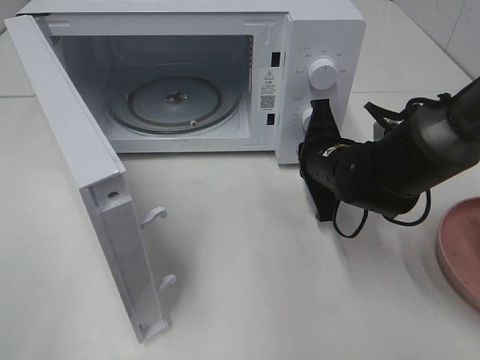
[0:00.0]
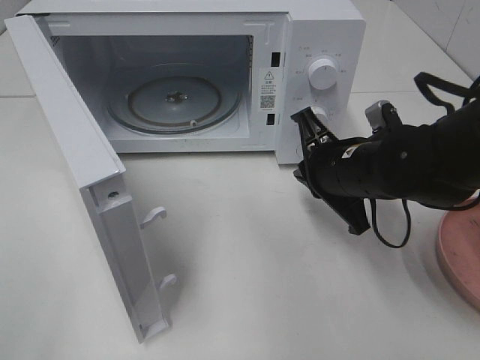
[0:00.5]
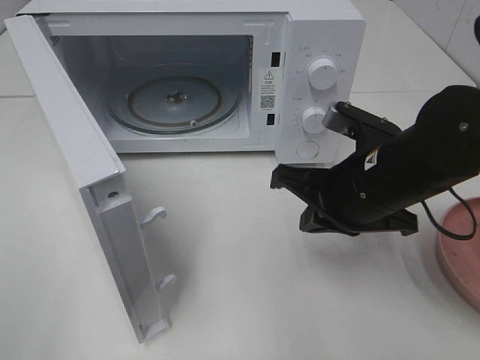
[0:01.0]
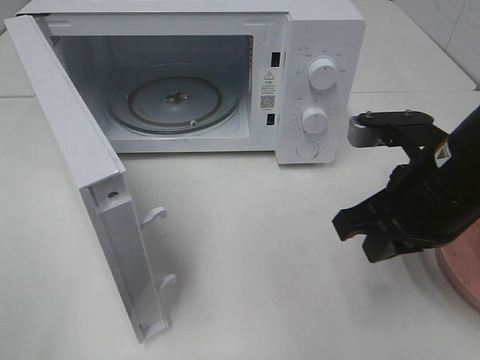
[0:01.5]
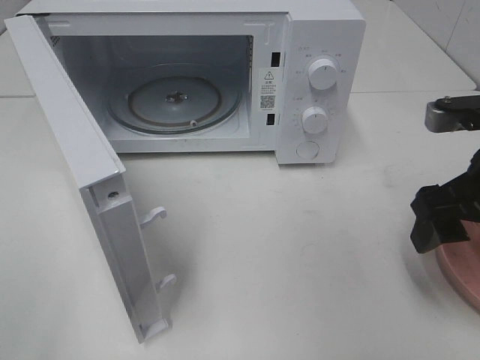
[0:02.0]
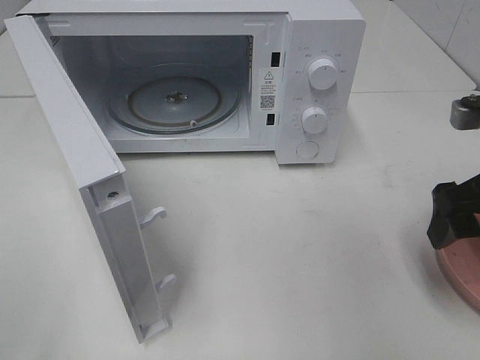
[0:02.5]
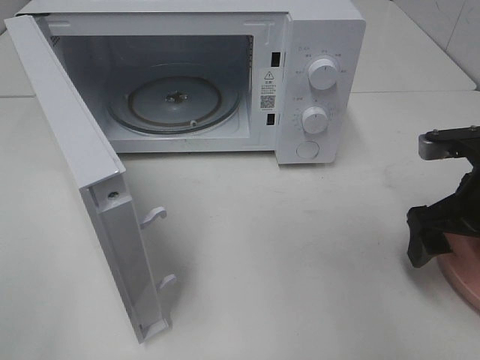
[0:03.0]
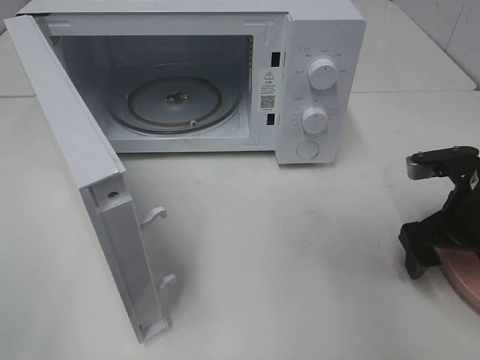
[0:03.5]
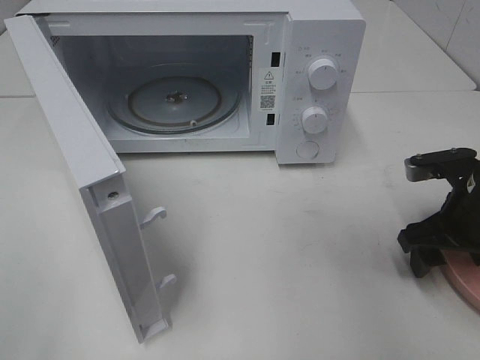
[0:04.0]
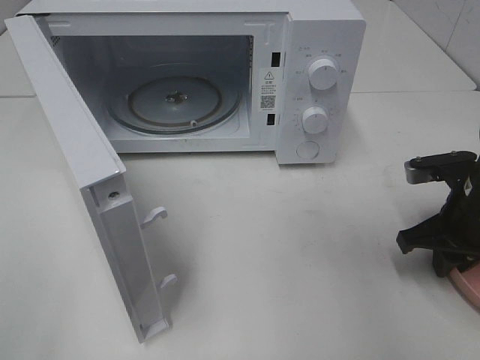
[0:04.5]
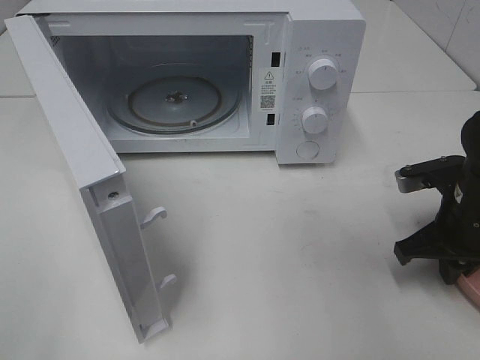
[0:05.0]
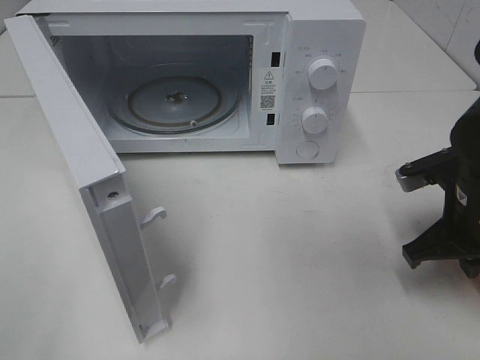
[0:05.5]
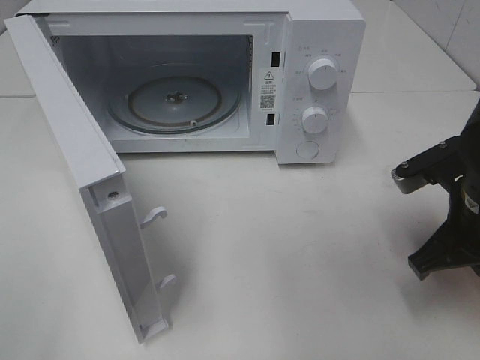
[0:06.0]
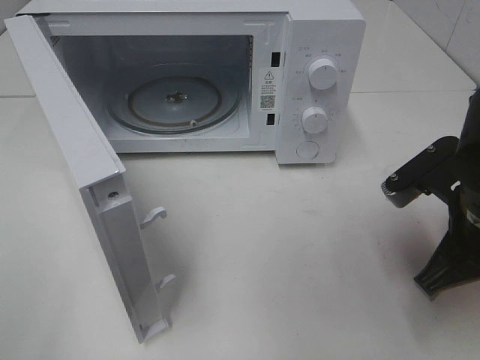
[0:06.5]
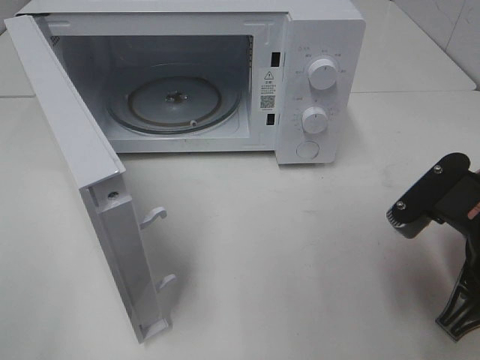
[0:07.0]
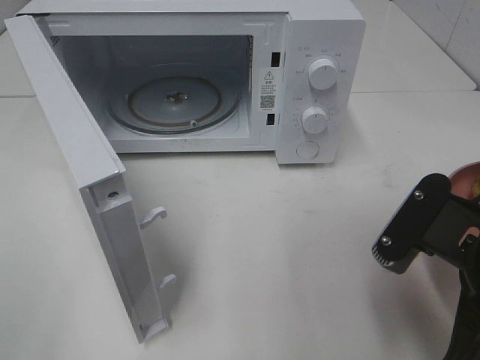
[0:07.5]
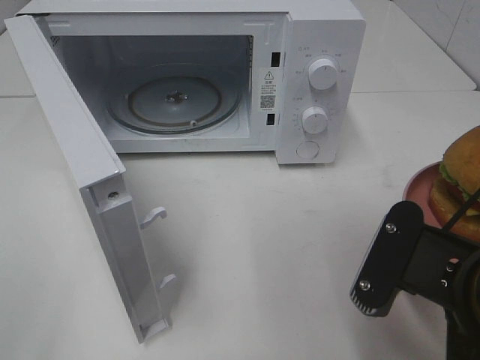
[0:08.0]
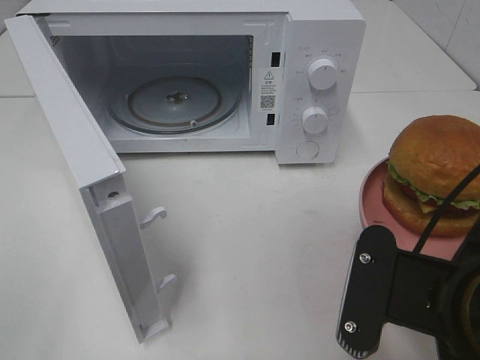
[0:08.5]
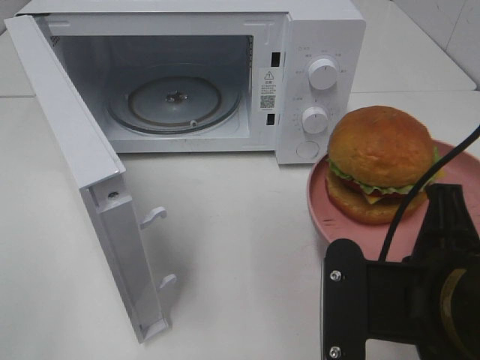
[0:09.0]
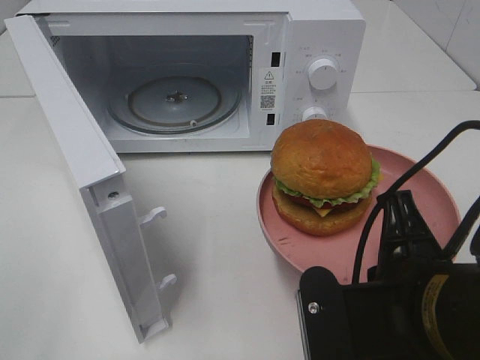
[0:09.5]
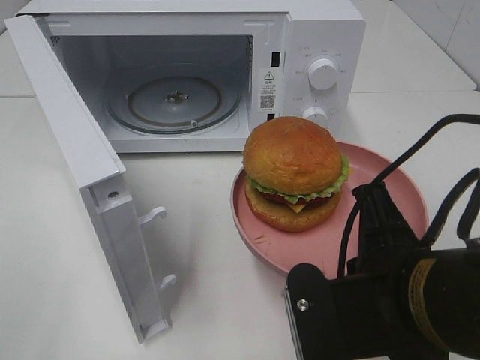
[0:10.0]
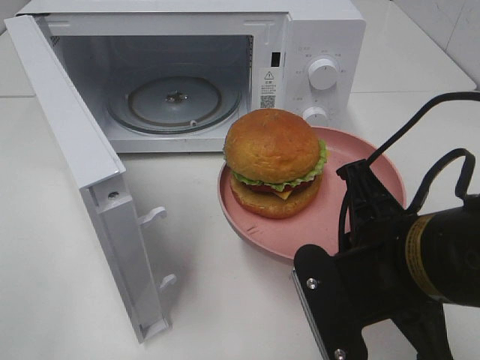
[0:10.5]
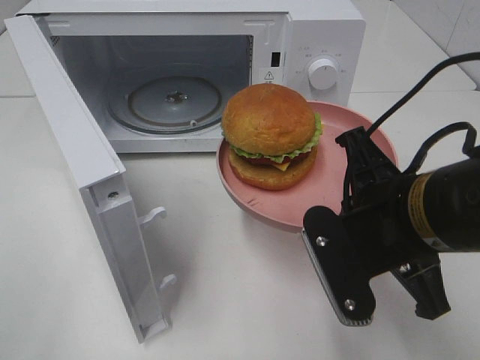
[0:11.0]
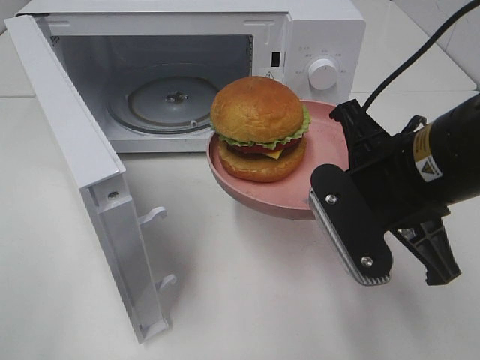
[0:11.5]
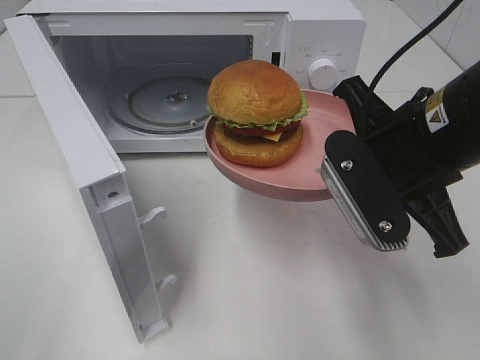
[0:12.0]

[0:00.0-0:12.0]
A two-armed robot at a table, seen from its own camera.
Task of the whole recording: Heat the burger.
Step, 0:00.5 to 0:05.0: Right hand: grab the plate with the hamburger.
0:00.0 to 0:02.0: The right gripper heads backward, to the right and upward, covering approximately 20 cm, and opens its fingers.
0:02.0 to 0:04.0: The right gripper shifts about 10 cm downward.
0:04.0 to 0:06.0: The right gripper ends up roughly 10 cm from where it was, and closes its fingers.
0:06.0 to 0:08.0: The right gripper travels backward and to the left by approximately 15 cm.
0:10.0 to 0:12.0: The right gripper goes some 10 cm forward and upward.

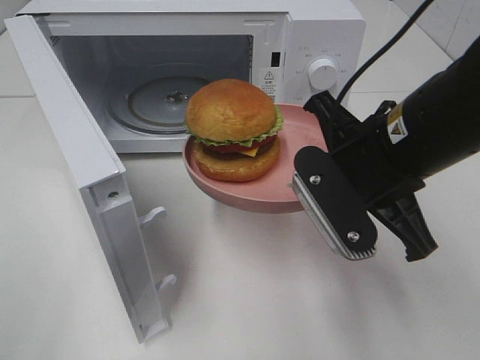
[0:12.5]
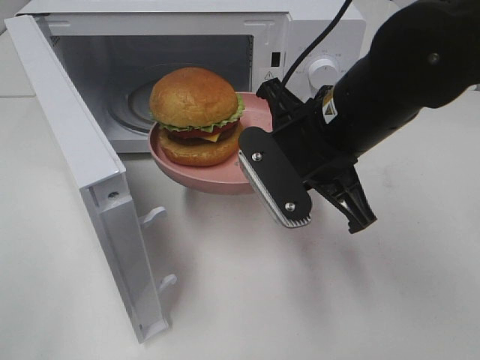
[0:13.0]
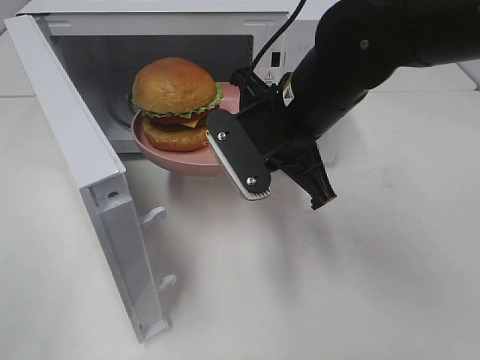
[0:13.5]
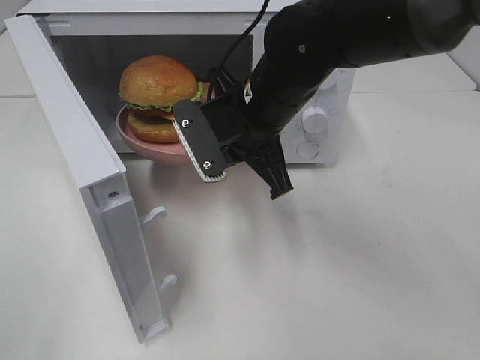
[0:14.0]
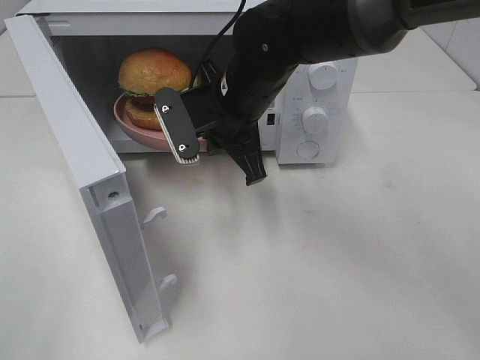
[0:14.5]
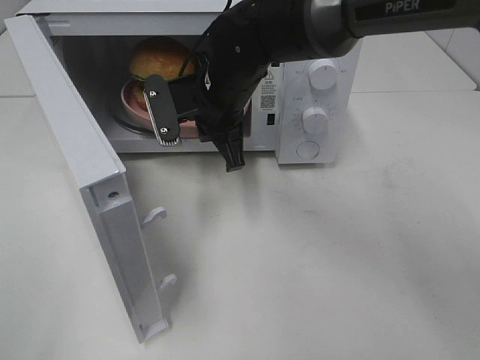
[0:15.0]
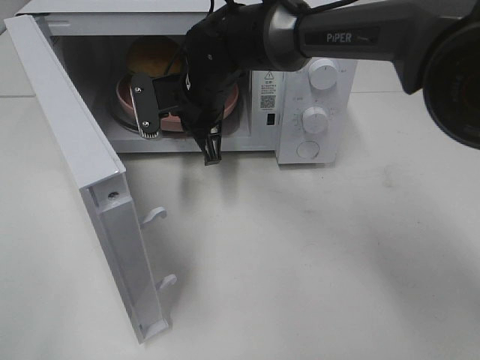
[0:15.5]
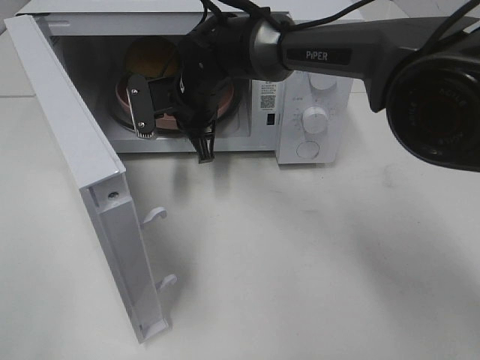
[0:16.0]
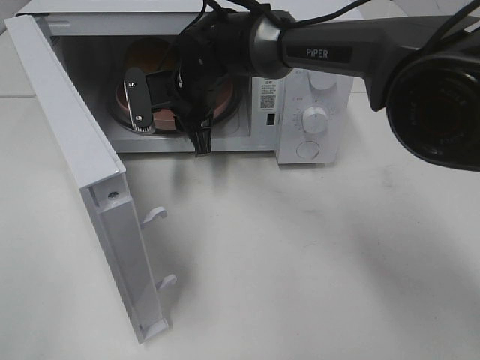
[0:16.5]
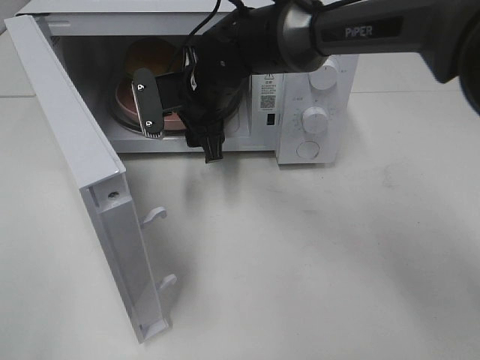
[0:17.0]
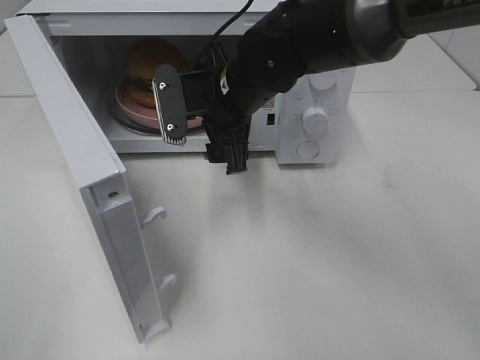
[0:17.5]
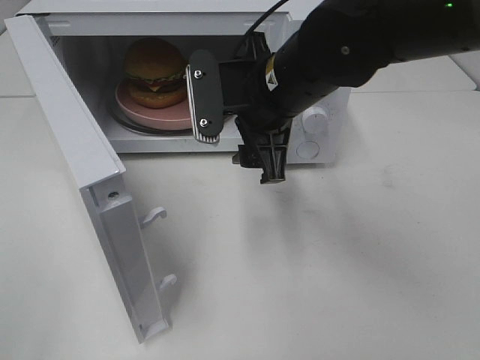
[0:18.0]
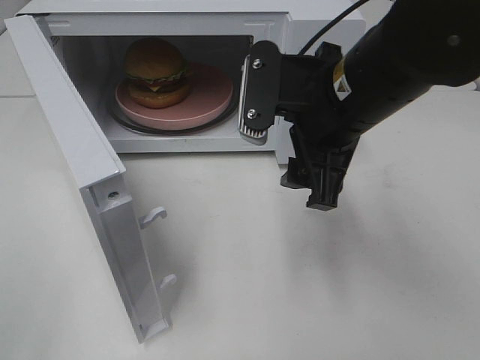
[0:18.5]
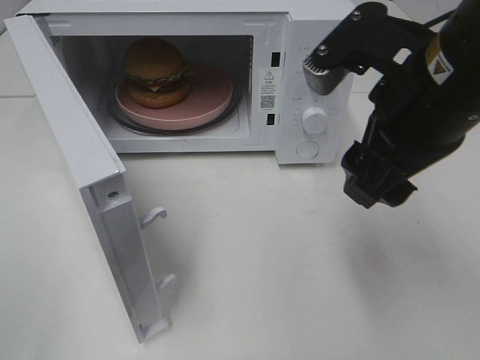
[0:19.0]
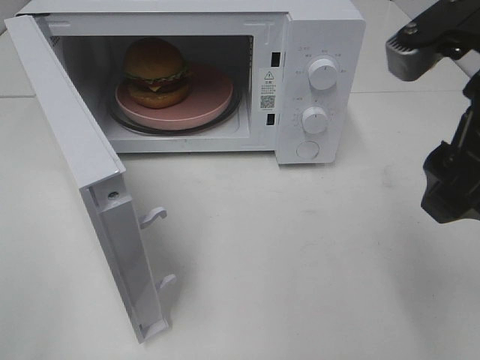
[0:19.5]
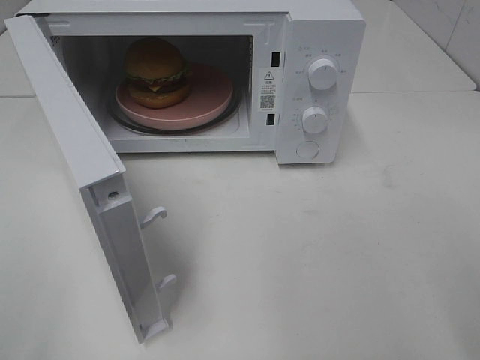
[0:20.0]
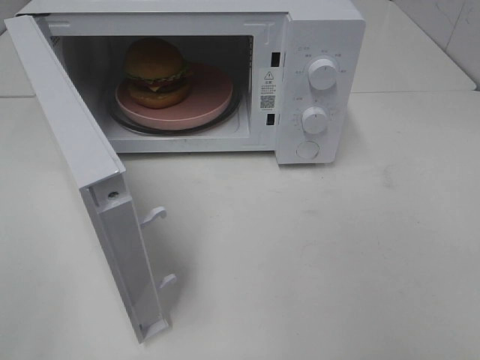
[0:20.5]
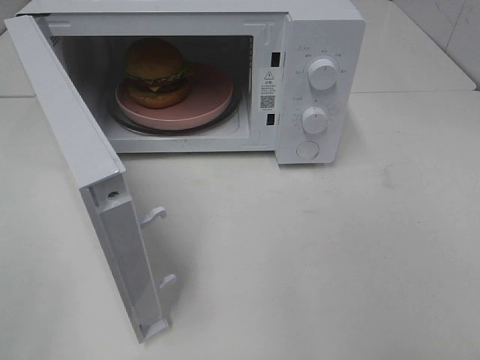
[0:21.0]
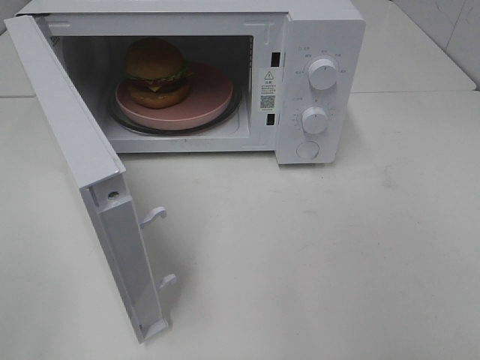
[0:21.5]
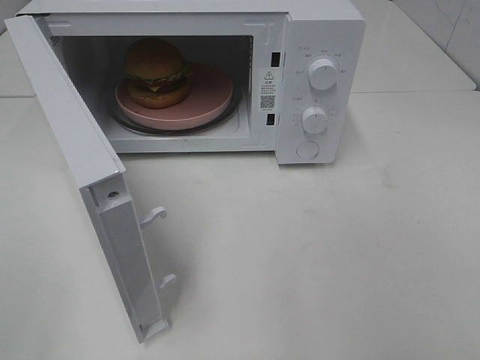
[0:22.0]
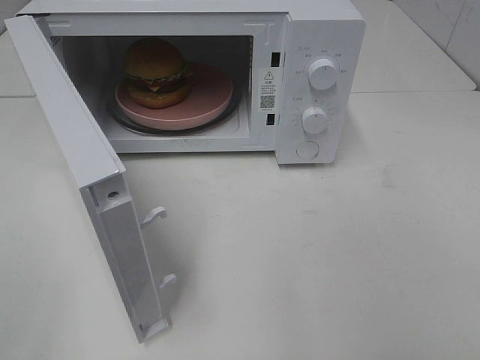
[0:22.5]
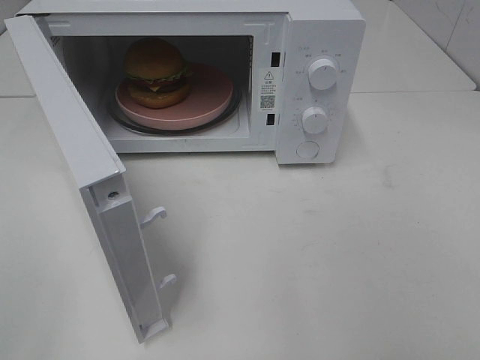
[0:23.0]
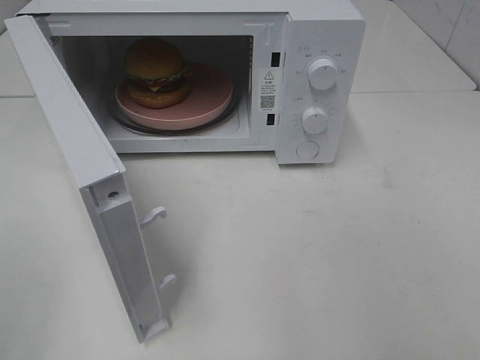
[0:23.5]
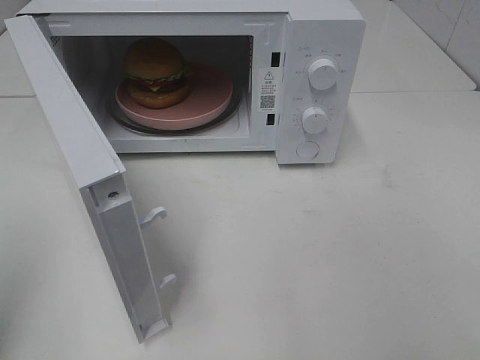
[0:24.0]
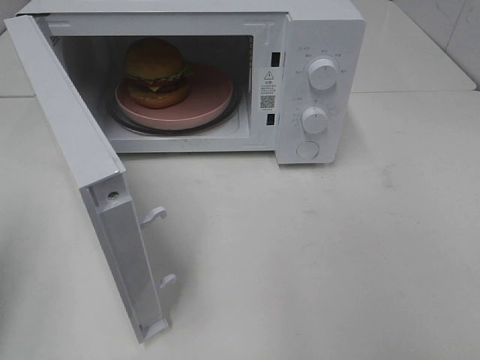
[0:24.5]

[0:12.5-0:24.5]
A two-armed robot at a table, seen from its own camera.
Task of the whole recording: Heat the burger.
Step, 0:12.5 to 0:16.5: Right hand: place the plate in the microwave.
0:12.5 to 0:14.5: The right gripper goes about 15 cm forward and to the left.
0:14.5 to 0:16.5: The right gripper heads forward and to the left, covering approximately 10 cm, and opens up.
0:16.5 to 0:18.5: The right gripper goes some 25 cm backward, to the right and upward, and opens its fingers.
0:18.5 to 0:20.5: The right gripper heads backward and to the right, covering approximately 30 cm.

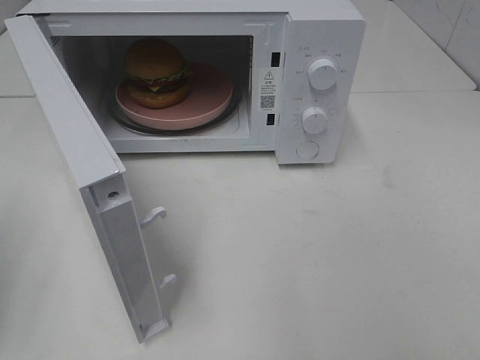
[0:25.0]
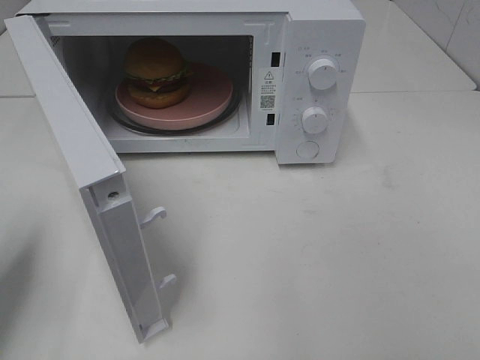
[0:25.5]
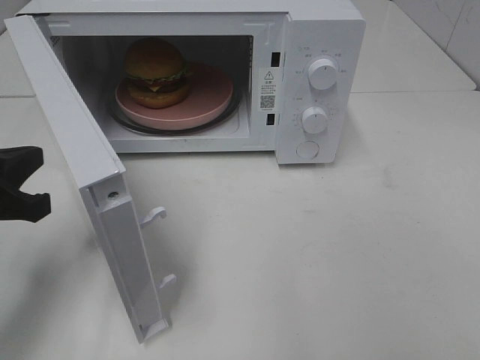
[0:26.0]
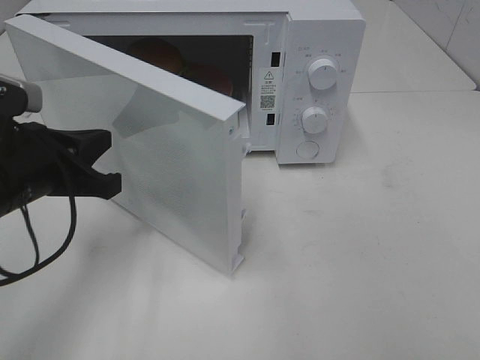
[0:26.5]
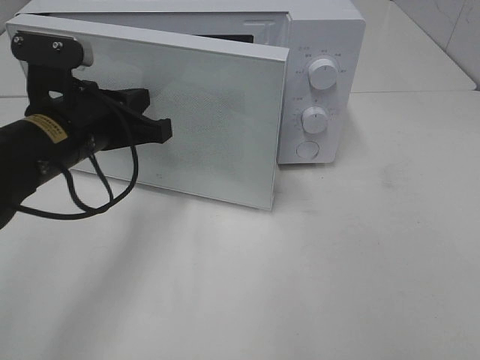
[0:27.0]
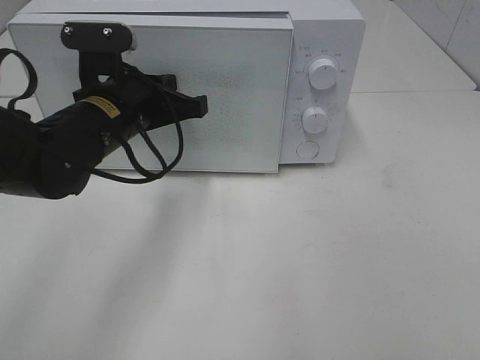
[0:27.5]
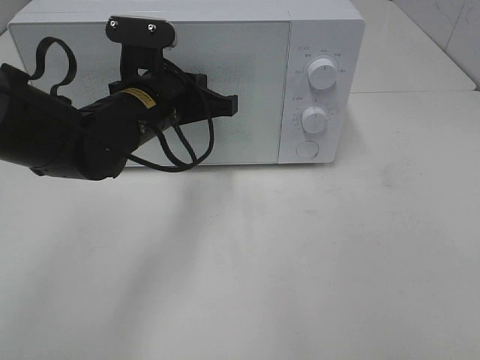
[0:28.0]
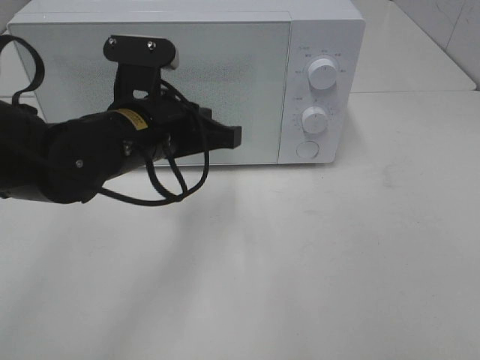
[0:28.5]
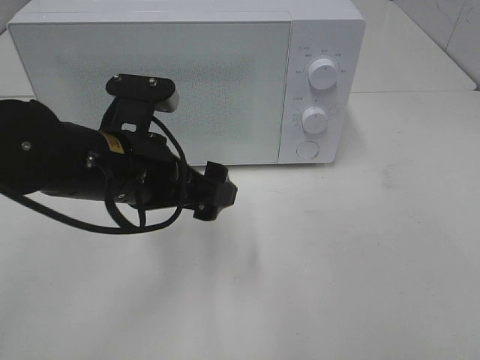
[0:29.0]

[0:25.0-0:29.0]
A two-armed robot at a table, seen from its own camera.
Task of the whole recording: Heat the burger.
Step, 0:25.0 to 0:28.5: Left hand: close the microwave door.
0:25.0 to 0:27.0: The left gripper heads to the right and forward, covering roughly 25 cm.
0:27.0 to 0:29.0: The left gripper heads to the right, covering approximately 5 cm, and opens.
